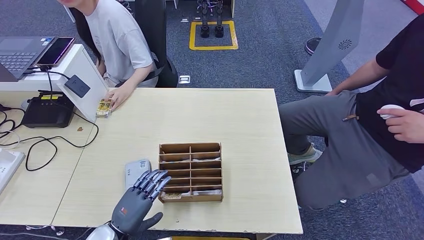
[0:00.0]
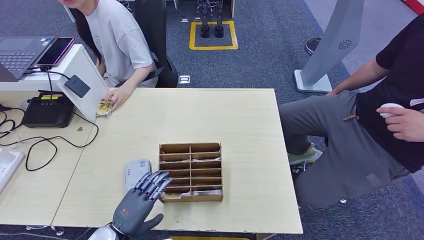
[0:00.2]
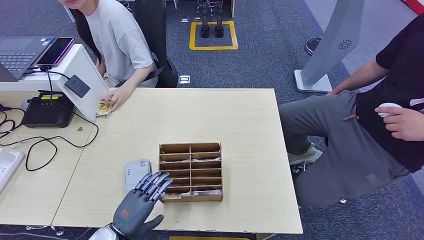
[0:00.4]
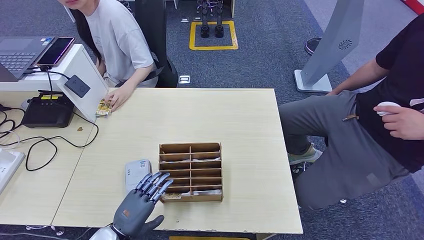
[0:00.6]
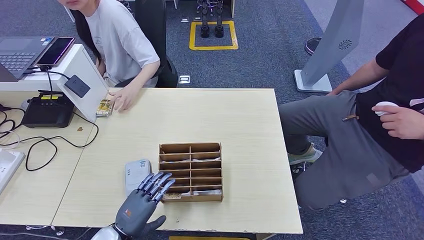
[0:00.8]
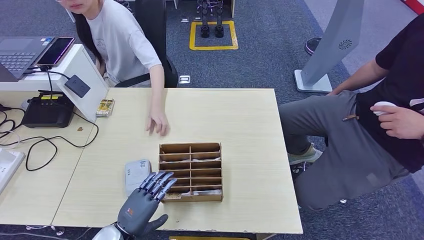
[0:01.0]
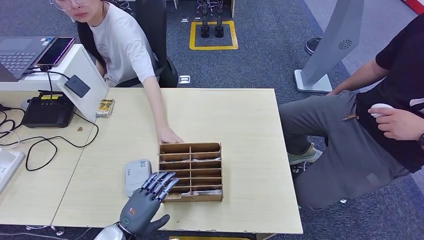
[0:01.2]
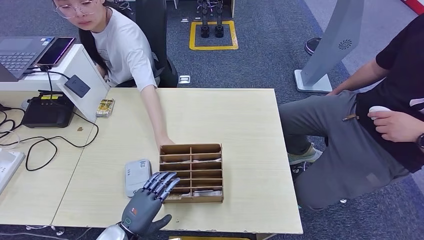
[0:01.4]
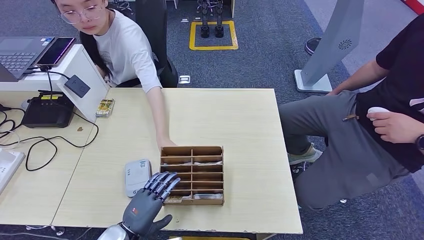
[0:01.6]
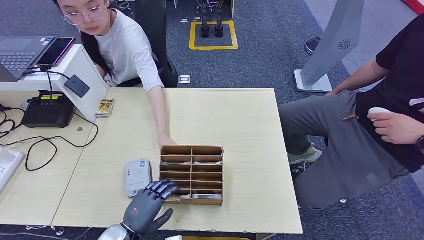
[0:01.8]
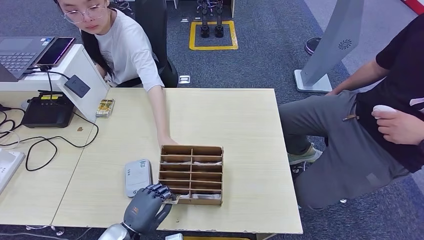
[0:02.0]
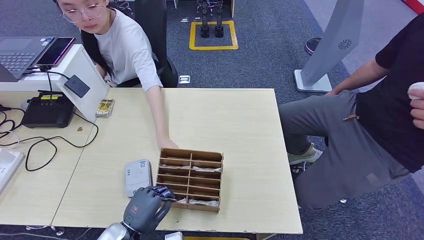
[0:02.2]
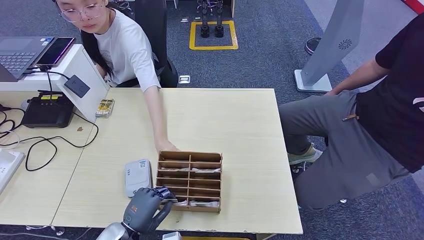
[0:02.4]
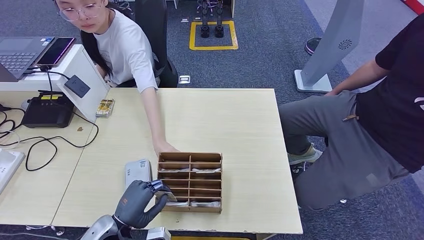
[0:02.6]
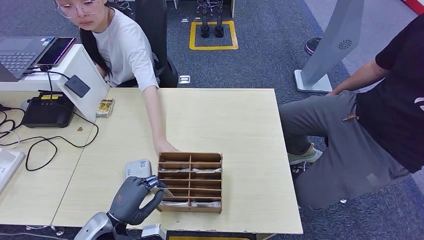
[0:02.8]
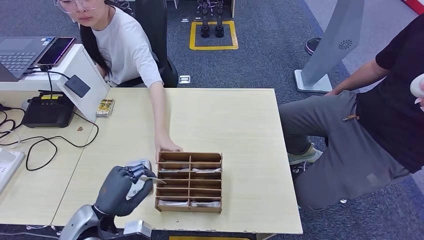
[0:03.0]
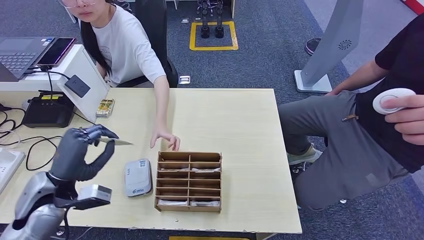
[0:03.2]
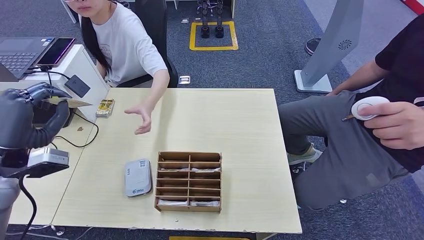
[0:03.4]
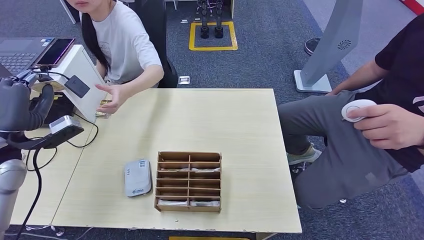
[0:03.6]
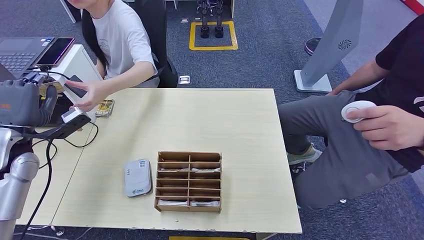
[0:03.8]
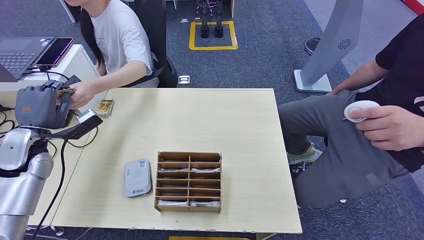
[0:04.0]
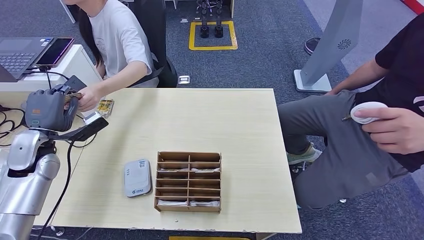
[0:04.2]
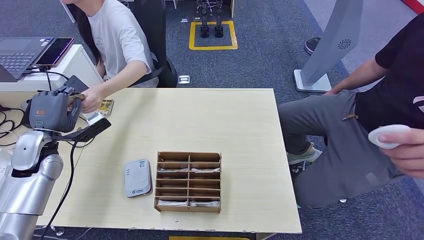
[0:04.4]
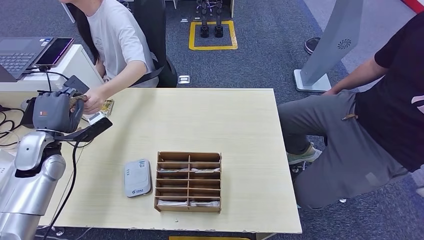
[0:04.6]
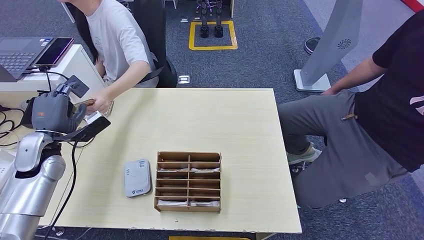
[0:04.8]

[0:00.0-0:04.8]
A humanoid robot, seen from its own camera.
Step, 0:00.0 to 0:03.4: Pick up the room key from the key card box.
Step, 0:03.6 to 0:04.8: Hand the room key to the person.
0:00.0 to 0:01.6: The hands stay close to where they were, moving slightly.
0:01.6 to 0:03.2: The left hand shifts some 20 cm upward, to the left and forward.
